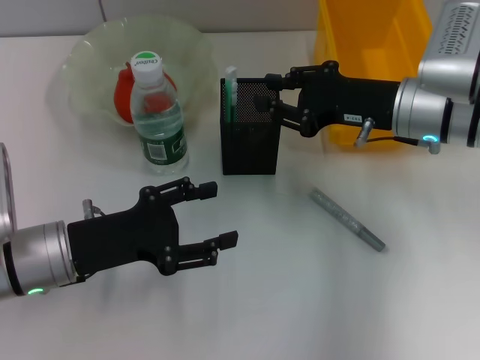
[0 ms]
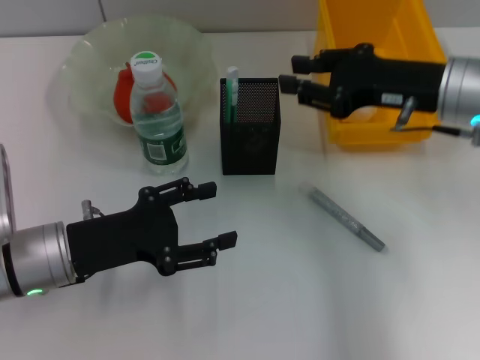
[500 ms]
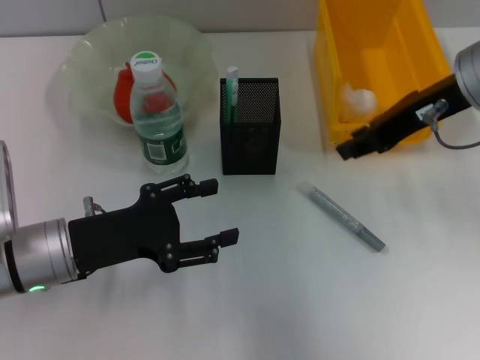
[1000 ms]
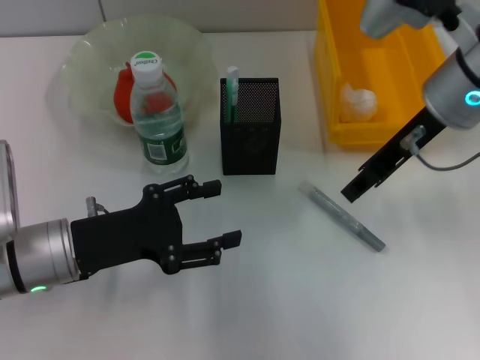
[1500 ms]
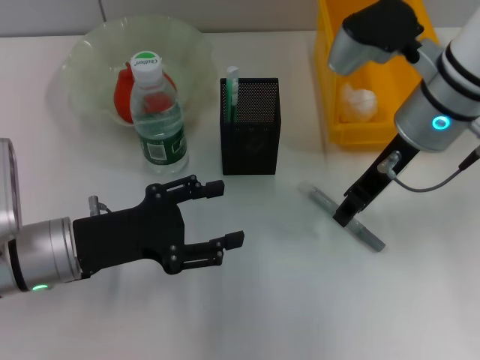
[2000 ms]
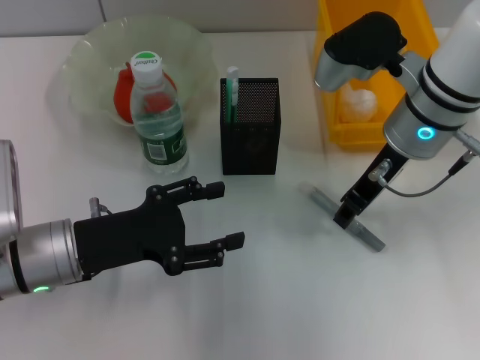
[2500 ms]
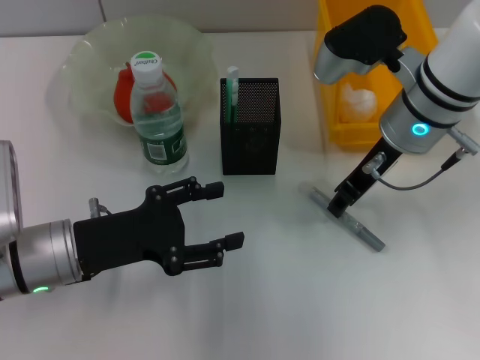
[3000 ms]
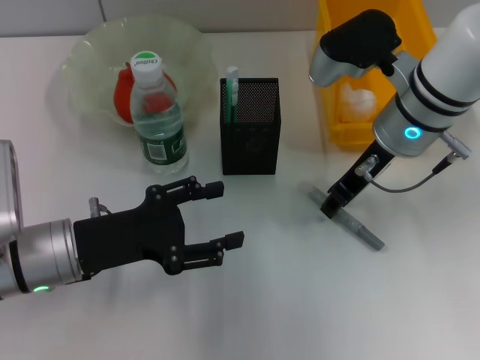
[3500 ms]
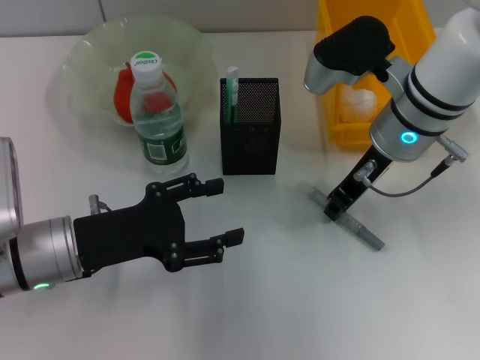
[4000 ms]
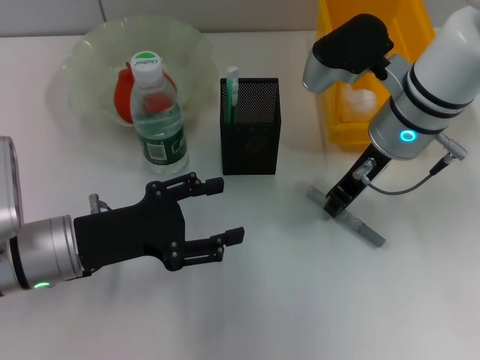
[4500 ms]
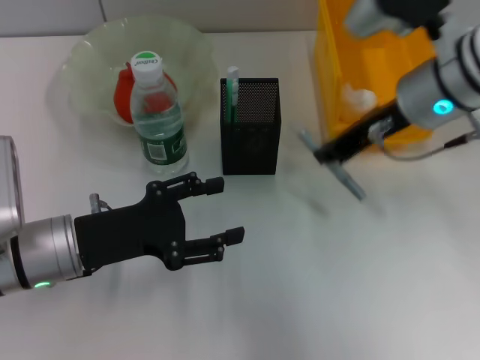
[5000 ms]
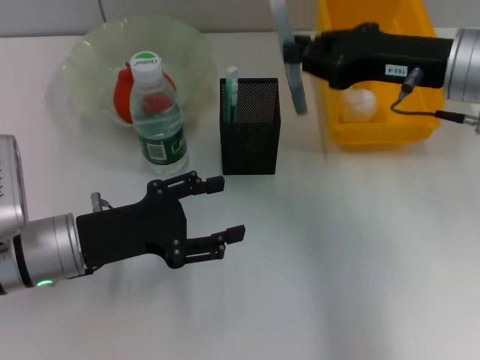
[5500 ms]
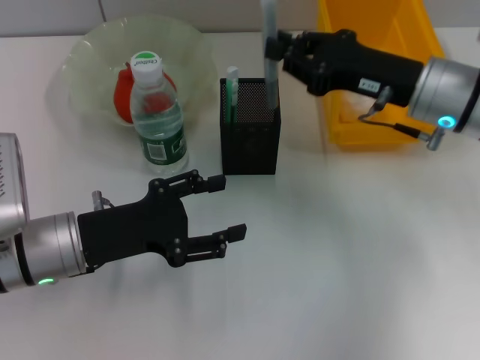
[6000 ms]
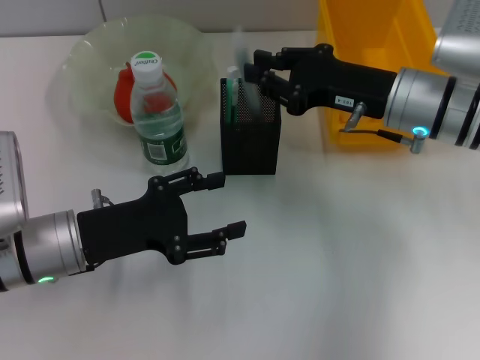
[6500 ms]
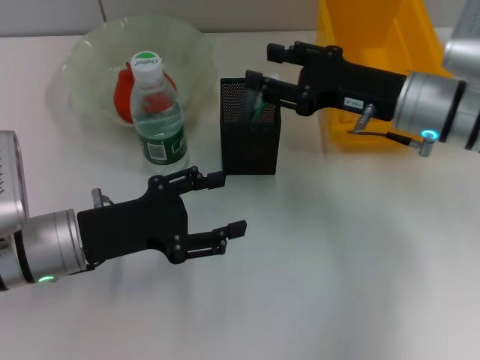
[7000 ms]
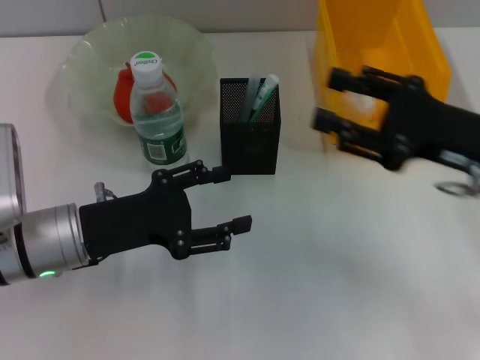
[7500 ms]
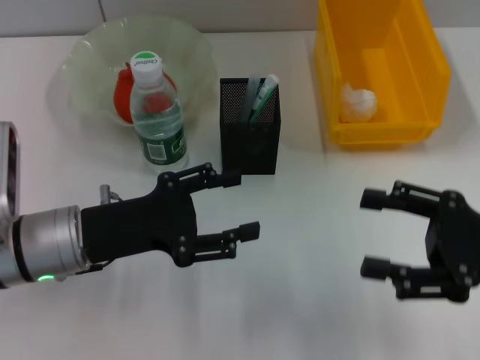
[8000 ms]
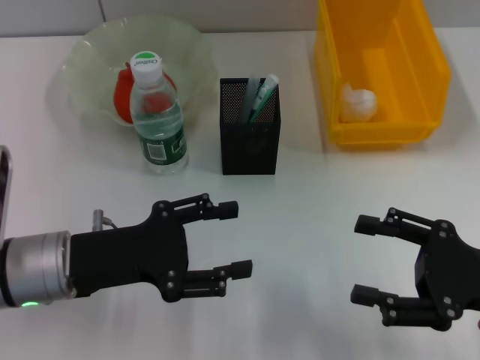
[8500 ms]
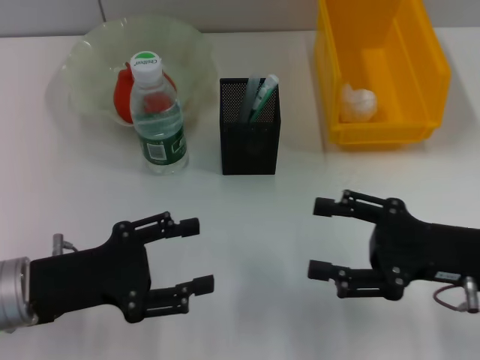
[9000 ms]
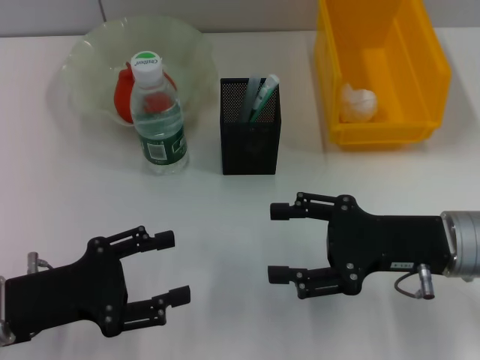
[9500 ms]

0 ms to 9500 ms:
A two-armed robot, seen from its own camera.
Step, 500 ms to 4500 ms: Grab the gray glue with the right hand.
Step, 5000 ms to 6500 ms: Place the gray glue into the pen holder with the right hand.
2000 ms to 4000 ms: The grippers stay close to where they were, moving slightly.
4000 ms to 5500 ms: The right gripper moves to the right, roughly 5 cm.
5500 ms to 7500 ms: The right gripper travels backward by some 5 cm, and opens its fingers.
7500 ms to 9500 ms: The right gripper goes about 5 cm downward, and reaches roughly 10 cm backward, then returns. The left gripper moves backward and to the left, about 10 cm.

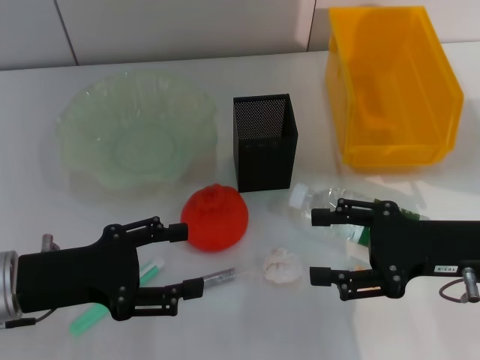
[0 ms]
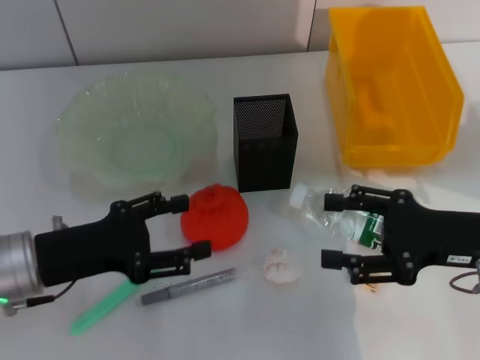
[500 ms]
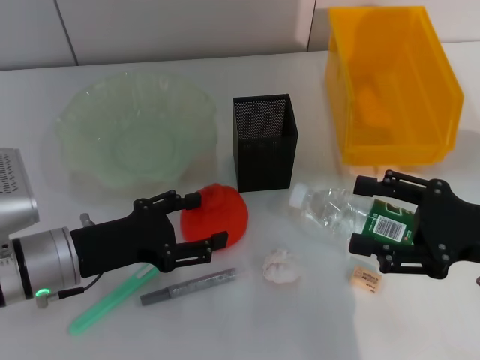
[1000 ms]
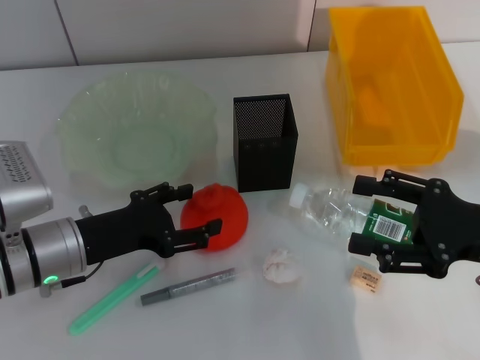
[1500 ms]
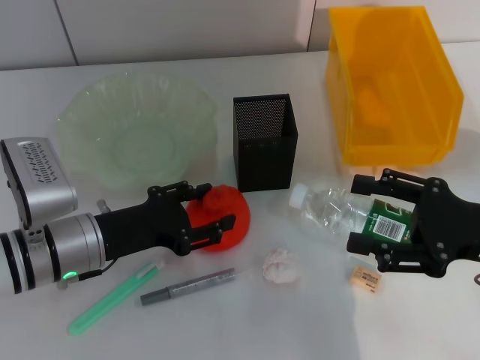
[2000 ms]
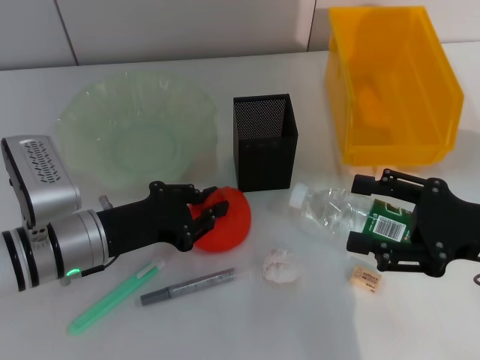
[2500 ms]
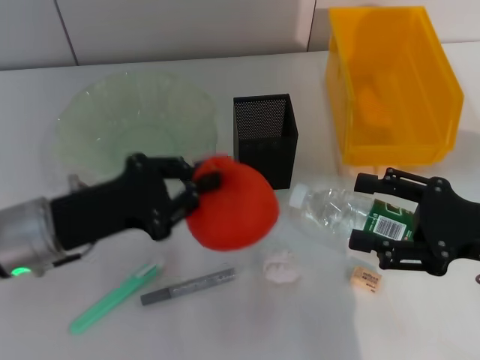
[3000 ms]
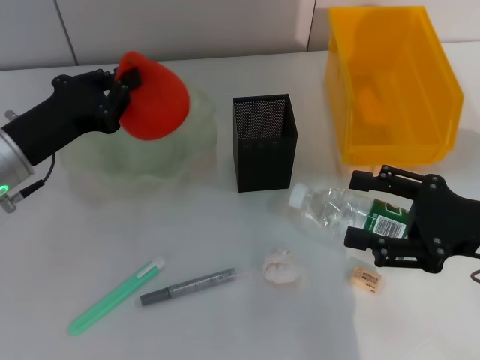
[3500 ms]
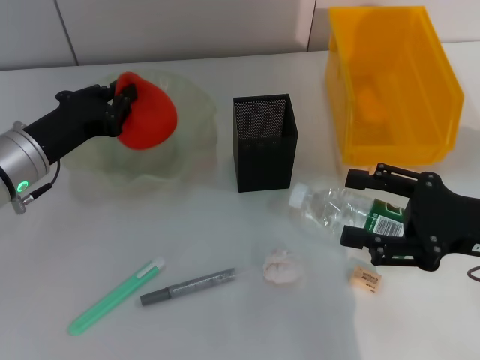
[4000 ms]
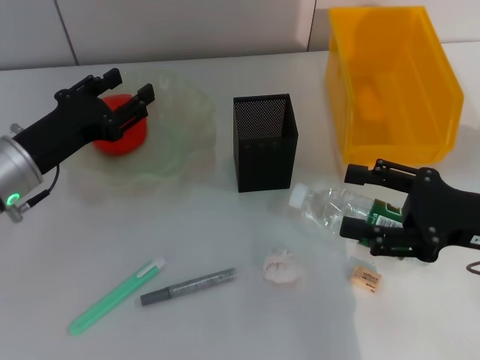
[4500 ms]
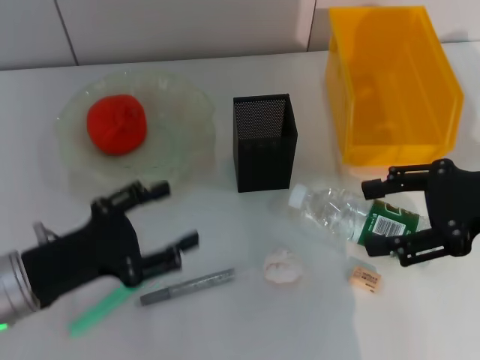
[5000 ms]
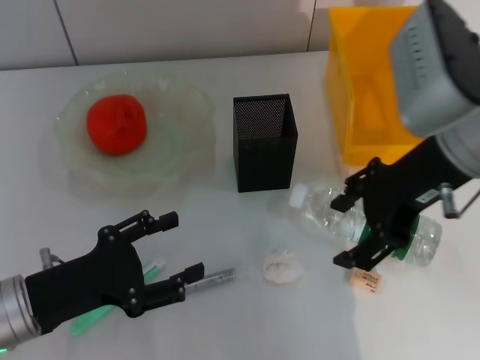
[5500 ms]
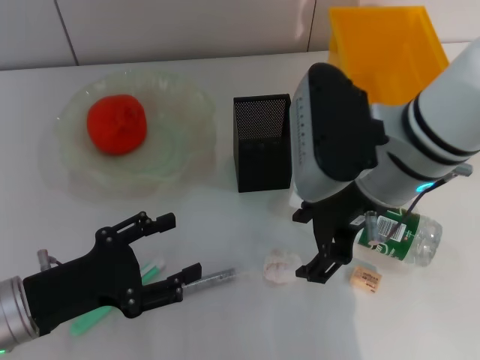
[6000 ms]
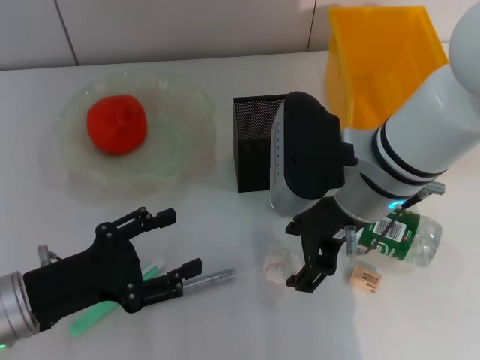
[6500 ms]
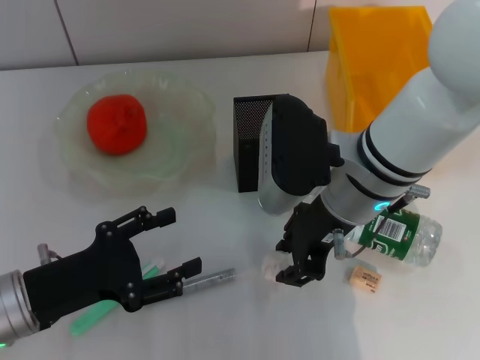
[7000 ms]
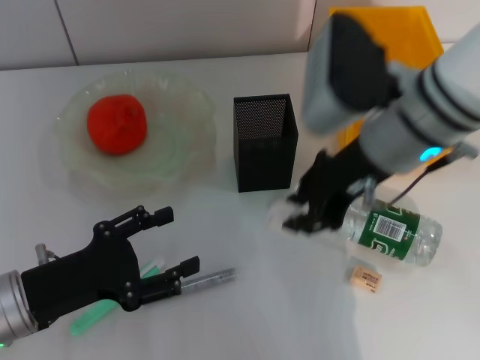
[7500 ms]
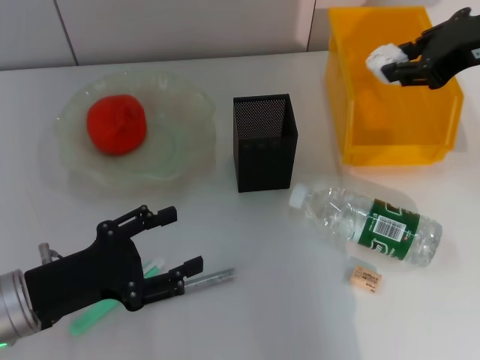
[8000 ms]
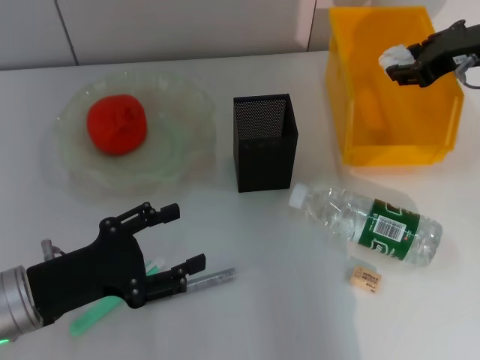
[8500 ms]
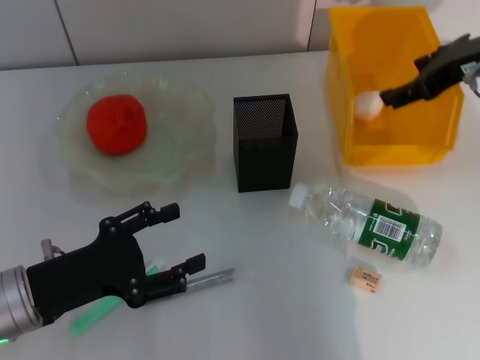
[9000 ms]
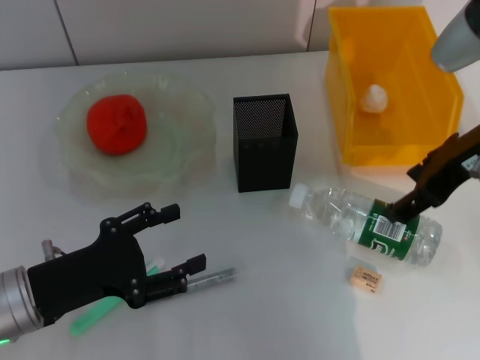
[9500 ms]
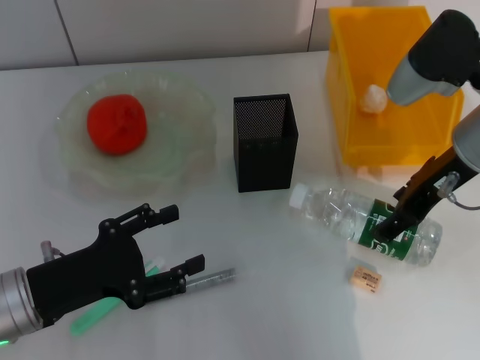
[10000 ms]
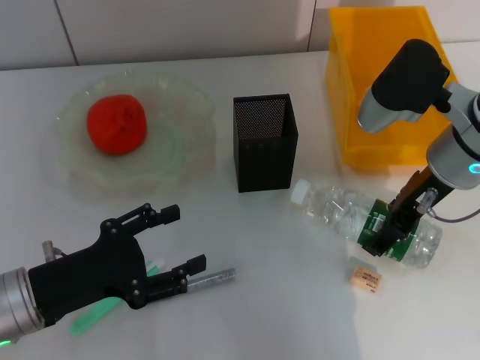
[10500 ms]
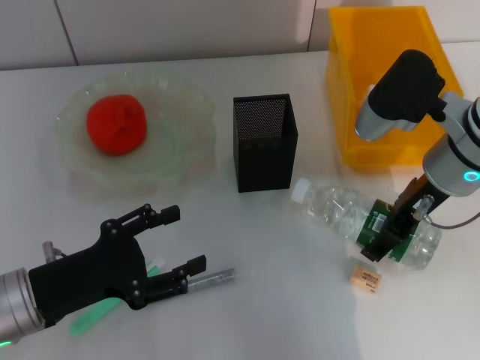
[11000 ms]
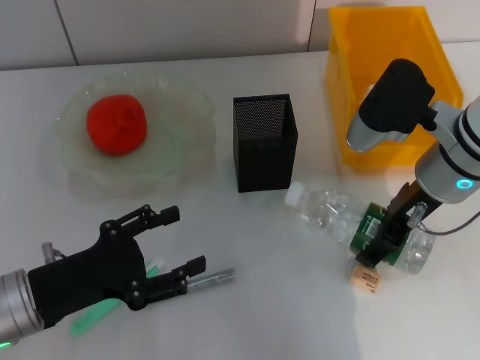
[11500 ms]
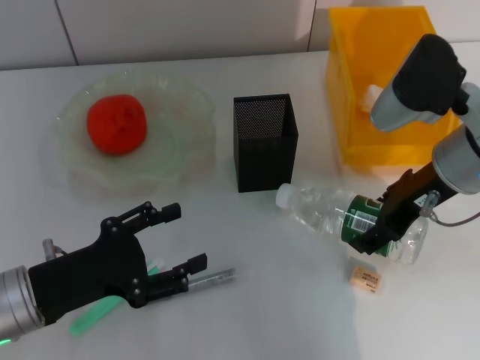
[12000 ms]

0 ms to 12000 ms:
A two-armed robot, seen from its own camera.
Step, 0 ms to 2500 ms: Grab the orange with the left hand.
Step, 3000 ms to 4000 ms: Place the orange into the fruit bowl with the left hand.
Step, 4500 ms to 7000 ms: Grab the paper ball with the right hand.
Step, 7500 ms to 8500 ms: Place the paper ball into the trash can with the right hand.
Step, 9500 ms to 11500 ms: Grab the water bottle with the right hand.
0 ms to 2000 ms: The left gripper goes some 5 cm to the right.
2000 ms to 4000 ms: The left gripper heads forward, covering approximately 5 cm, and closes its fingers.
4000 ms to 6000 ms: The right gripper travels to the left, upward and forward by about 20 cm. Meanwhile the left gripper travels backward by approximately 15 cm, and opens its fingers.
6000 ms to 8000 ms: The right gripper moves to the right and upward, approximately 15 cm, and closes up.
8000 ms to 10000 ms: The right gripper heads downward, covering some 10 cm, travels forward and back again, roughly 5 cm each way, and opens.
10000 ms to 12000 ms: The grippers make only small movements.

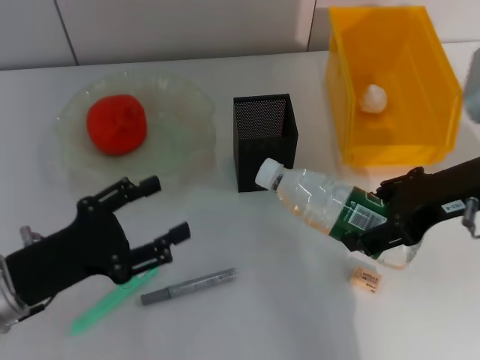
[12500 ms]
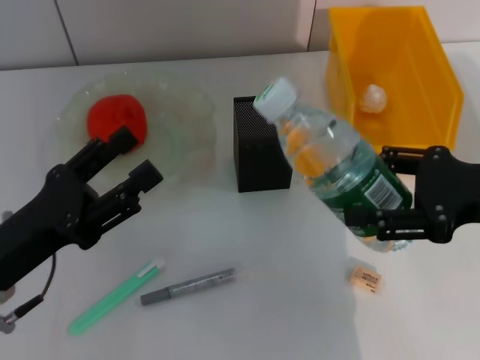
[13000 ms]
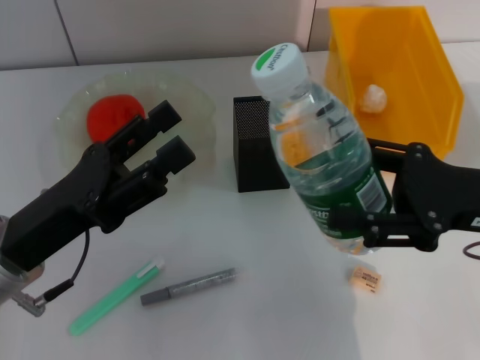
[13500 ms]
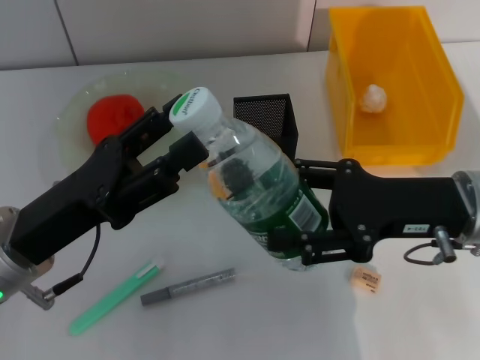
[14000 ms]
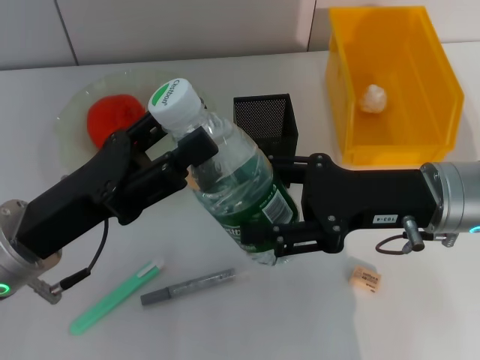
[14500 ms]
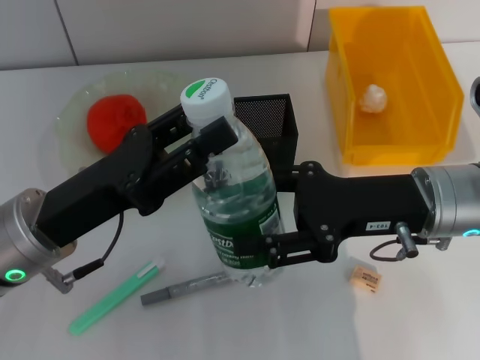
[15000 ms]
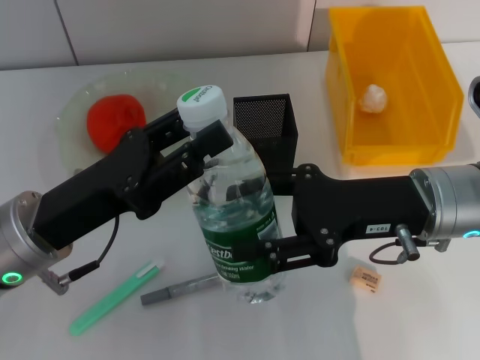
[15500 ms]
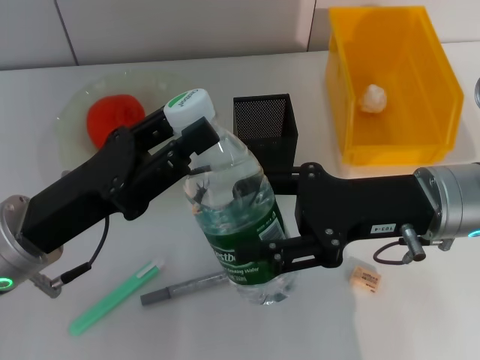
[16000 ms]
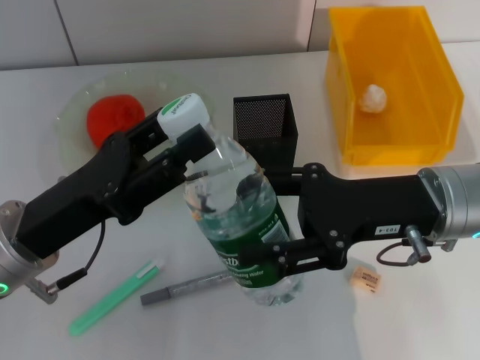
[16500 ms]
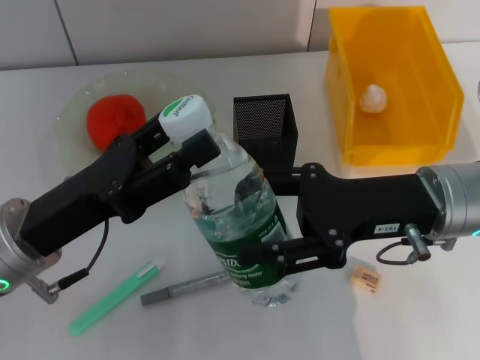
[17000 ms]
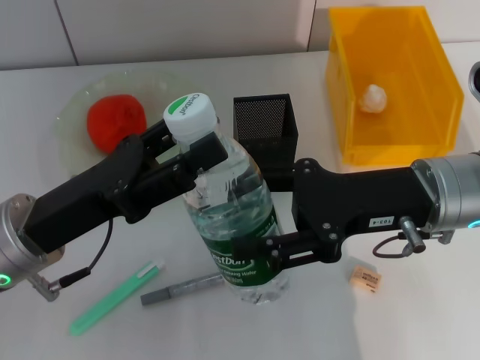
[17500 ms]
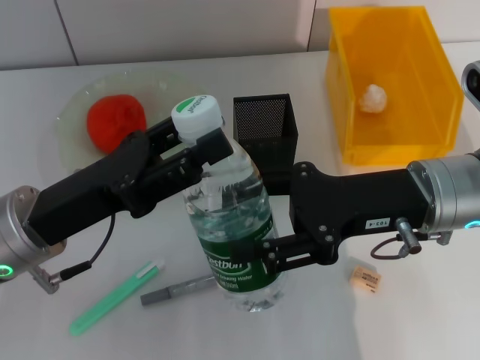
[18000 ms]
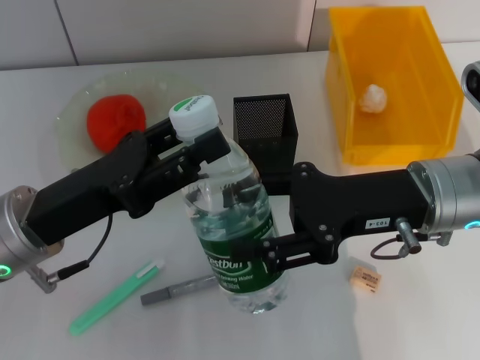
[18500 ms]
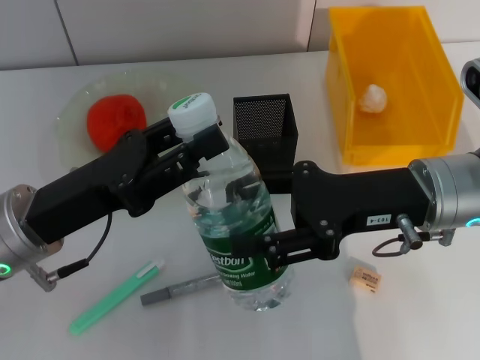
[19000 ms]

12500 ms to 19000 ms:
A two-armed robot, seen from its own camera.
12500 ms to 14500 ms: The left gripper changes place by some 5 cm; the right gripper heads downward, covering roughly 5 cm.
14500 ms to 17000 ms: The left gripper closes, then reopens.
17000 ms to 19000 ms: The left gripper closes up.
